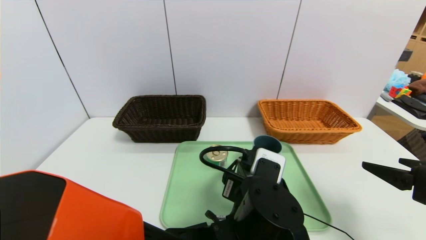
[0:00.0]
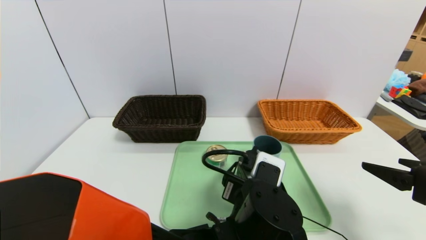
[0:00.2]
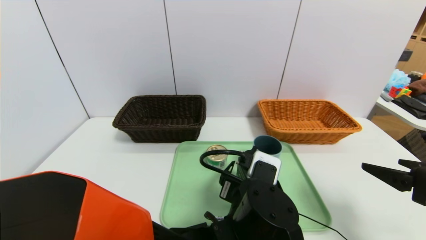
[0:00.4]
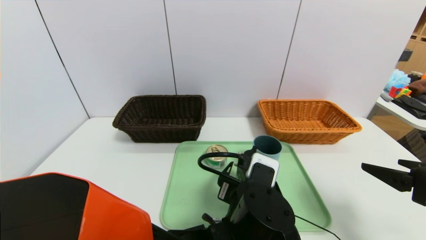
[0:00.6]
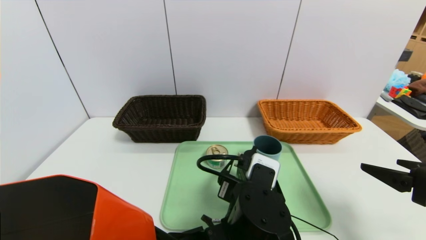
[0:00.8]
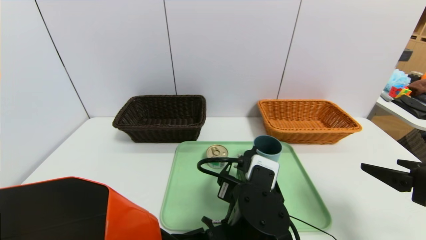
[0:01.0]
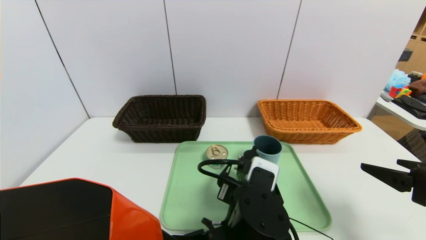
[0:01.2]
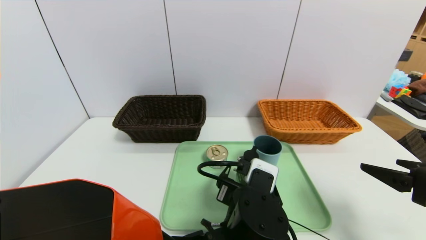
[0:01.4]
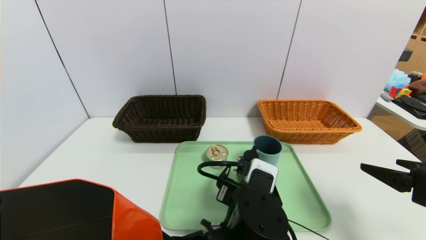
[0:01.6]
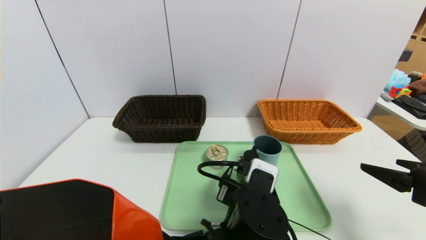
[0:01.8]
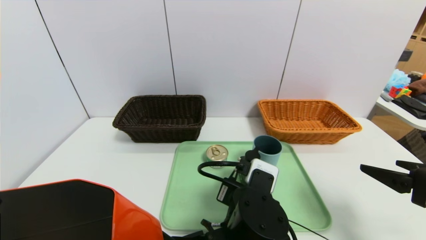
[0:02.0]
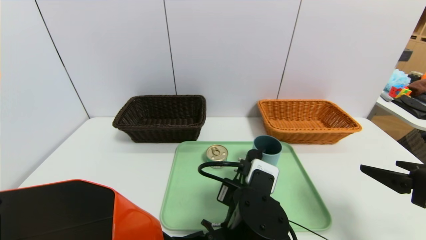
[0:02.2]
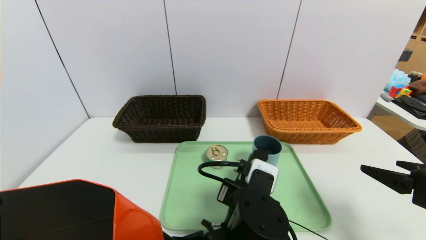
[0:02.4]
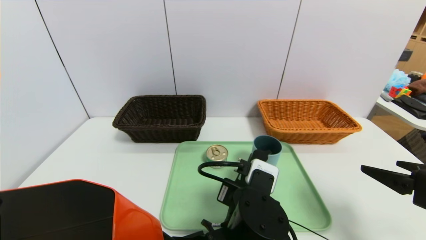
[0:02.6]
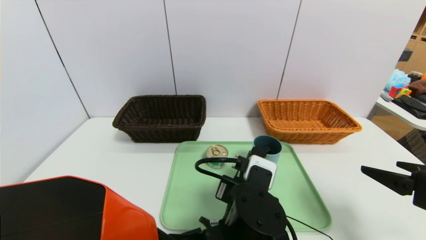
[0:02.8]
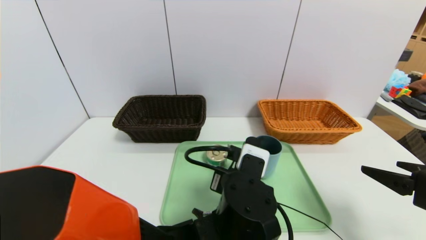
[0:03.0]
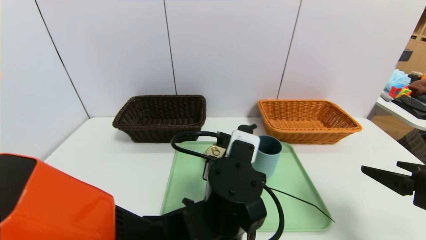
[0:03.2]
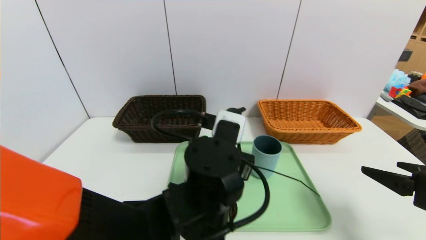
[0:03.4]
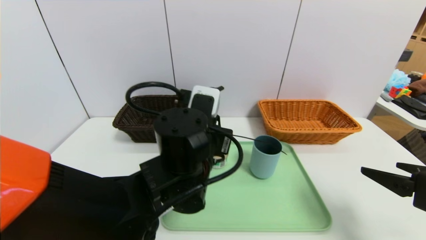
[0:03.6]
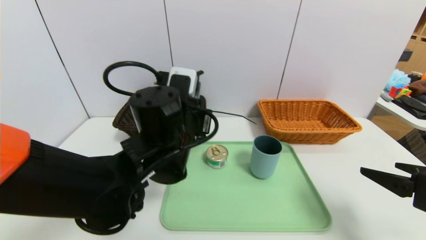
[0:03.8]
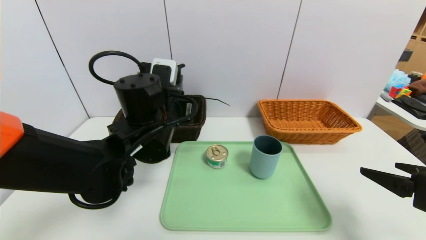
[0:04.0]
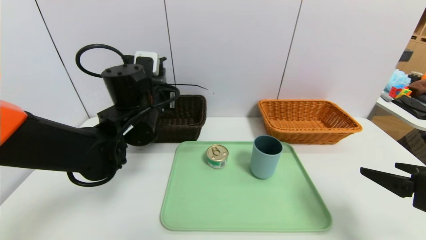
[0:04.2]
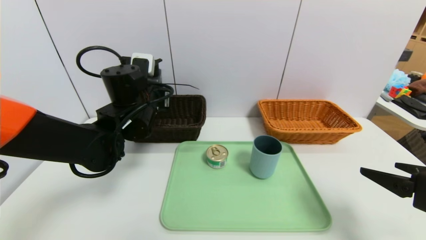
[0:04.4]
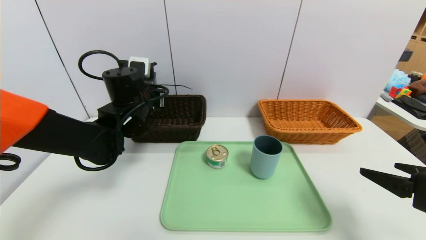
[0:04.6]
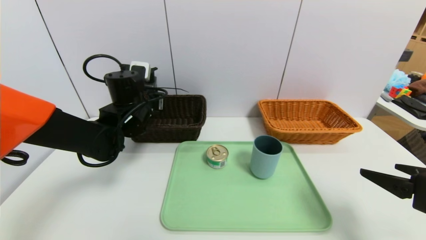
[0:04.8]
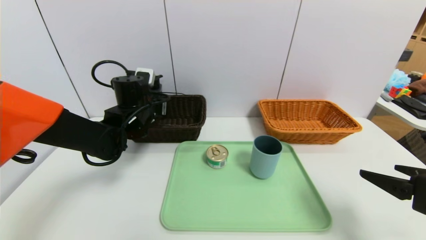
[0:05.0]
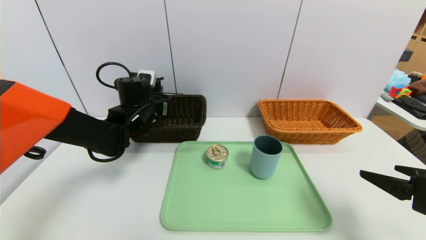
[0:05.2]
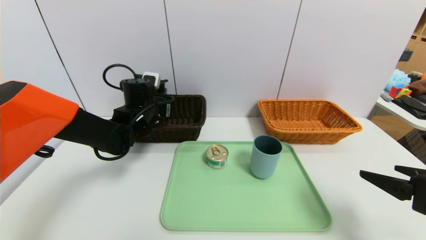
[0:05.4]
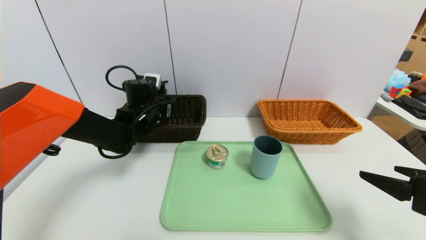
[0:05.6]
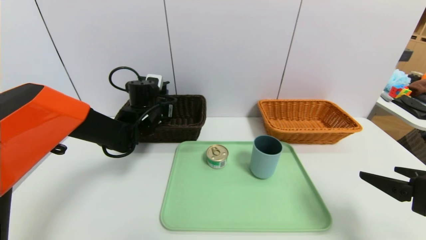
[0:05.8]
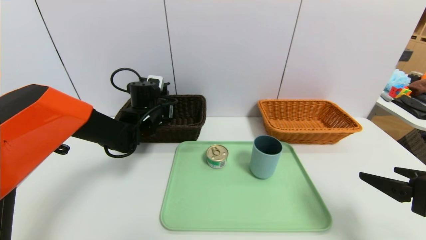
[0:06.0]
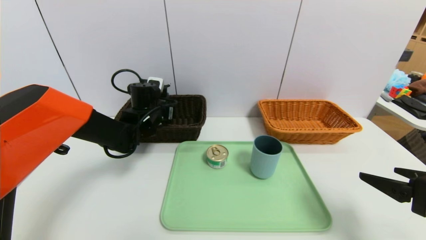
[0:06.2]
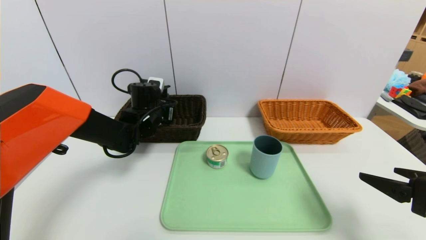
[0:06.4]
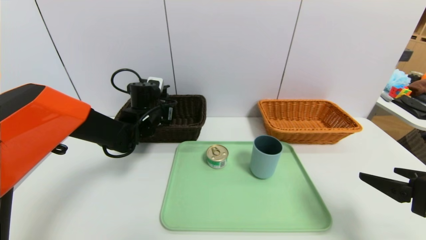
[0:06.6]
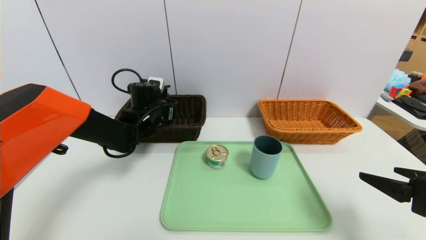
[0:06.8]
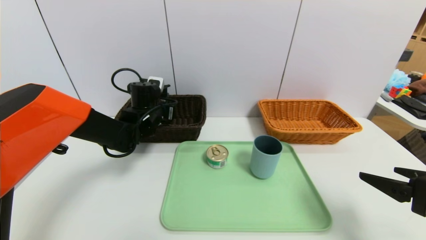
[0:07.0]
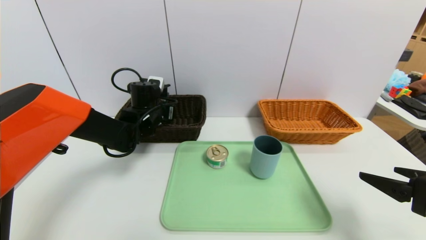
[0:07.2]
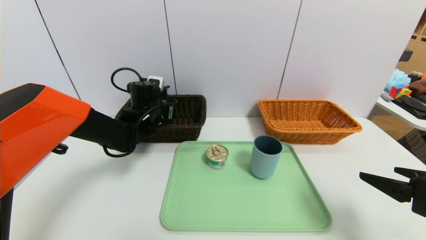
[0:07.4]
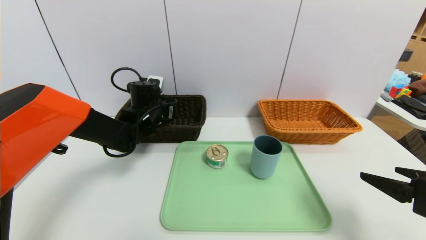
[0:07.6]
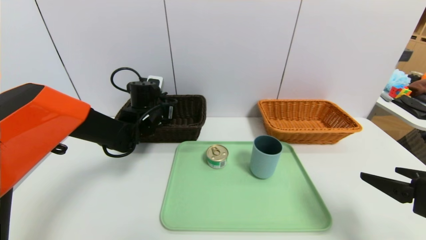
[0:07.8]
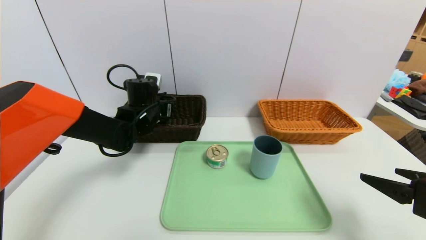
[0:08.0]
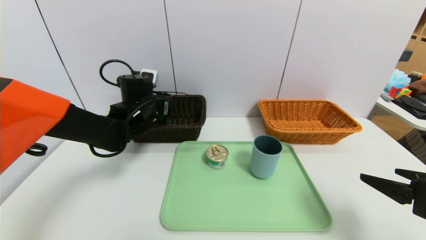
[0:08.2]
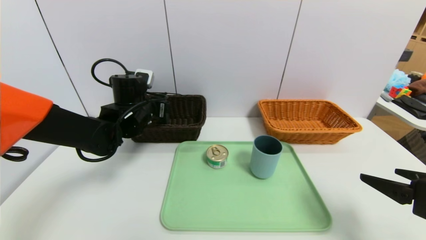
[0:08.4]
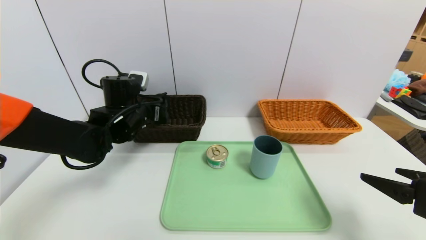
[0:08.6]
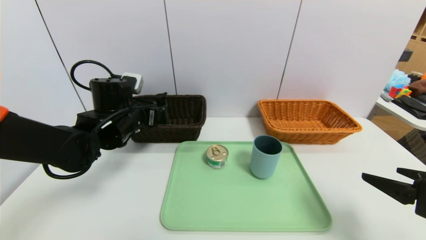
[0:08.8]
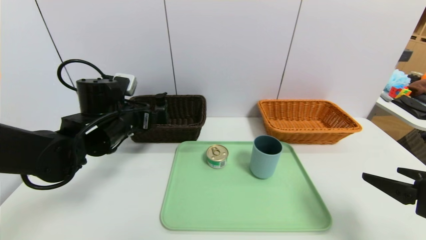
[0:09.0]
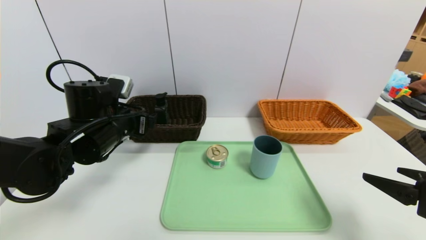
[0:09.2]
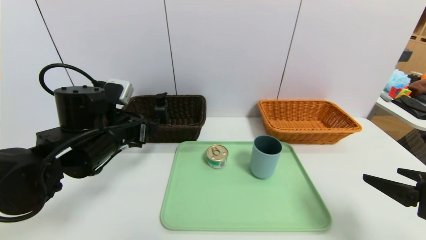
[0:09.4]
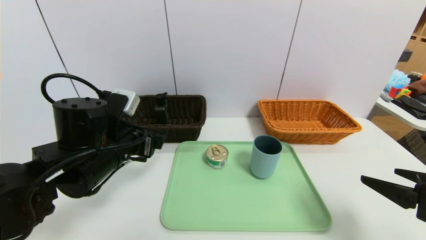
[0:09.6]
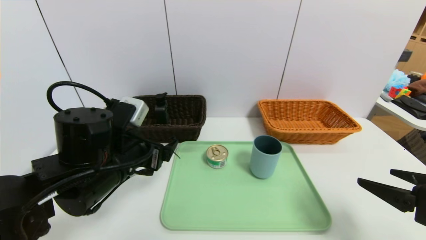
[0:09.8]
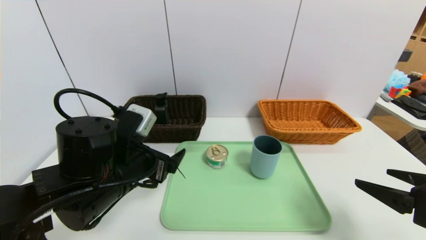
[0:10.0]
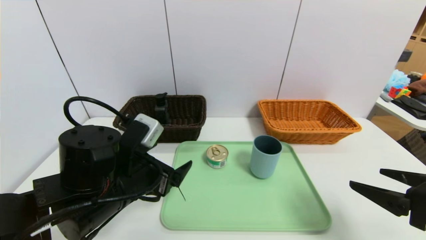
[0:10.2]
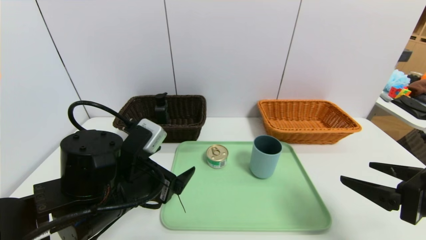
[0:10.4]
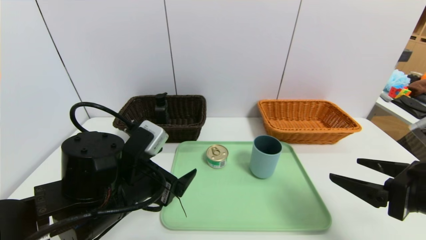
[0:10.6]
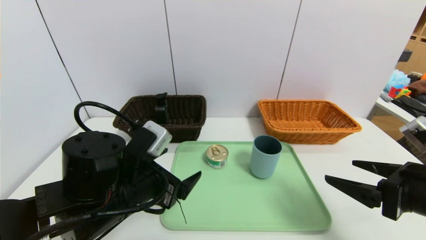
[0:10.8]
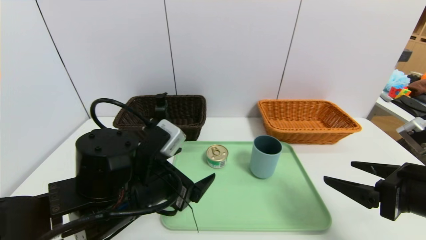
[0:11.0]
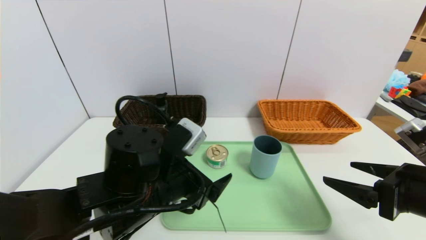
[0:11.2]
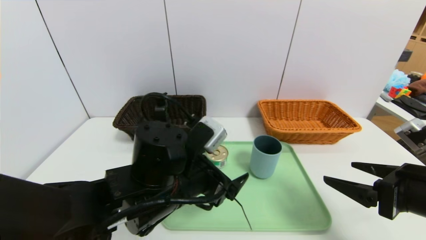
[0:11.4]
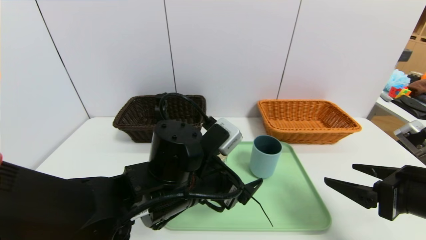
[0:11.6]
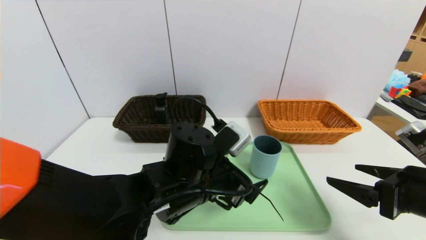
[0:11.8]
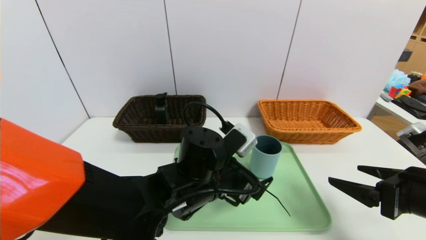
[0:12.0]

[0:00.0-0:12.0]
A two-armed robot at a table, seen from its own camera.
Task of the whole recording: place the food in the right basket with the right gripper, and place the non food items in the left basket with the left gripper.
Step, 0:00.0 to 0:07.8: Grasp the hard cleanser and put it in the left basket.
0:00.0 to 0:01.6: There are only small adjustments of the grippers.
0:01.6 to 0:03.0: The left gripper closes.
0:03.0 to 0:04.4: The left gripper heads to the left, forward and upward, covering approximately 25 cm.
0:04.4 to 0:06.0: The left gripper shifts roughly 10 cm forward and downward.
0:06.0 to 0:07.6: The left gripper opens its fingers.
0:07.6 to 0:09.0: The left gripper is displaced backward by roughly 10 cm, and opens its fingers.
0:09.0 to 0:10.4: The left gripper moves backward and to the right, approximately 15 cm.
0:10.4 to 0:12.0: The left gripper moves to the right, about 15 cm.

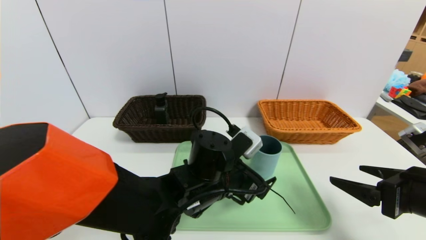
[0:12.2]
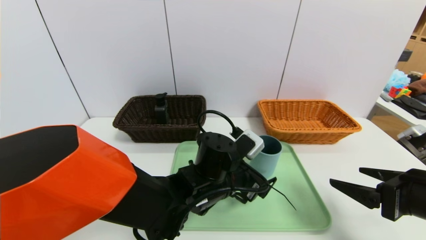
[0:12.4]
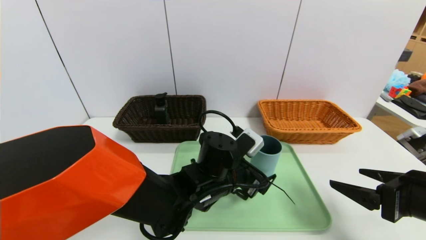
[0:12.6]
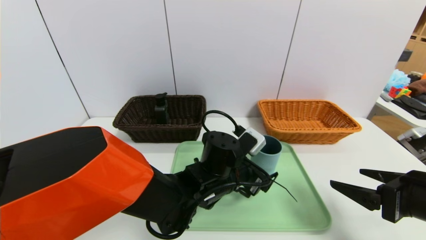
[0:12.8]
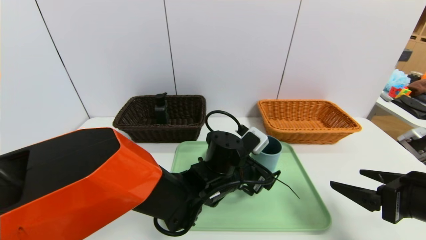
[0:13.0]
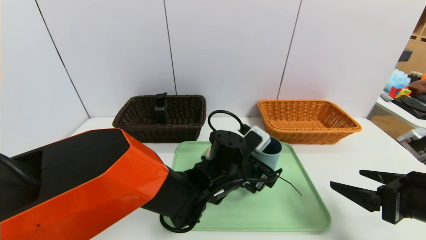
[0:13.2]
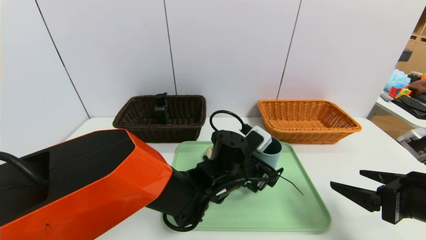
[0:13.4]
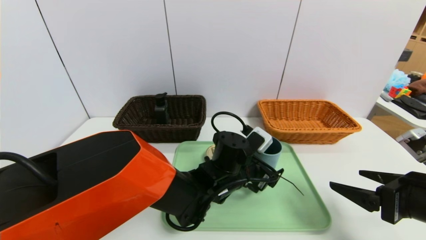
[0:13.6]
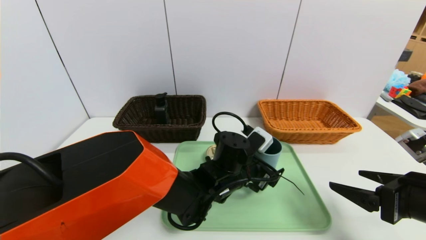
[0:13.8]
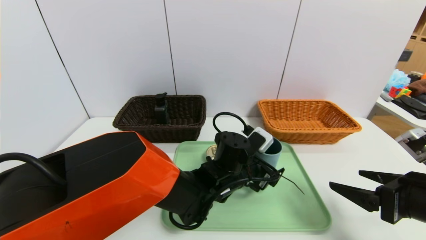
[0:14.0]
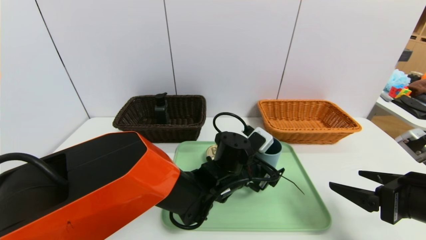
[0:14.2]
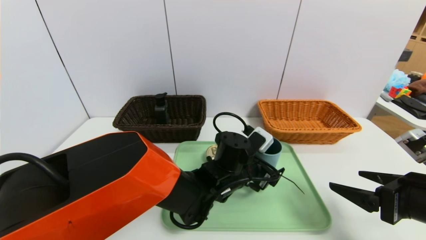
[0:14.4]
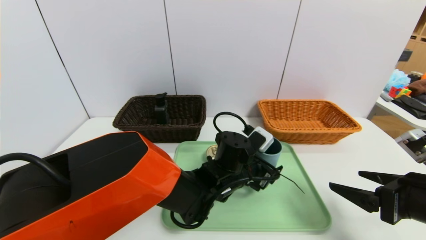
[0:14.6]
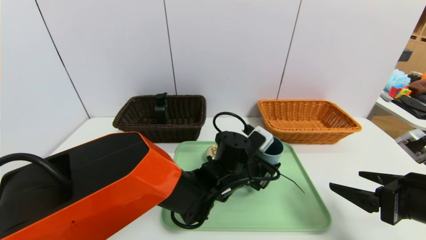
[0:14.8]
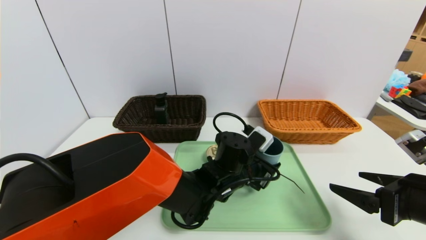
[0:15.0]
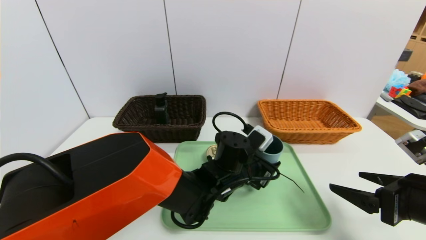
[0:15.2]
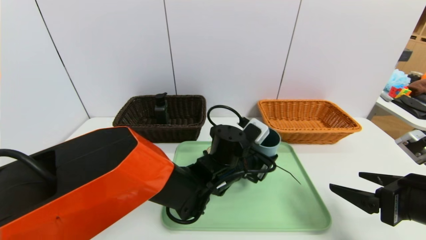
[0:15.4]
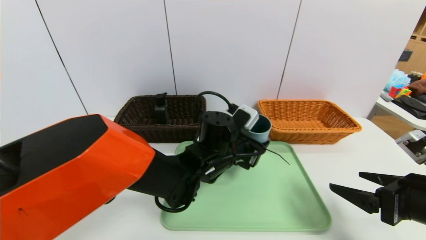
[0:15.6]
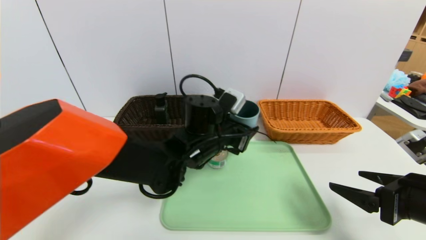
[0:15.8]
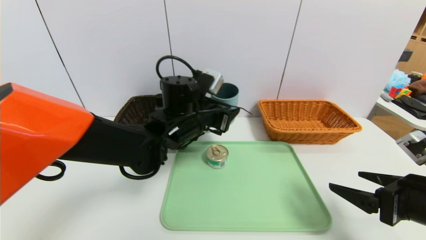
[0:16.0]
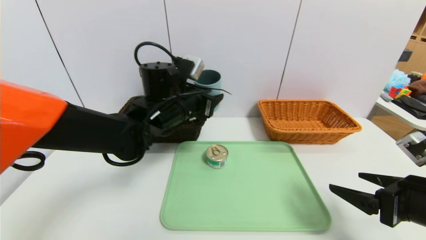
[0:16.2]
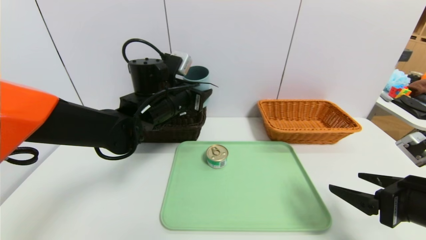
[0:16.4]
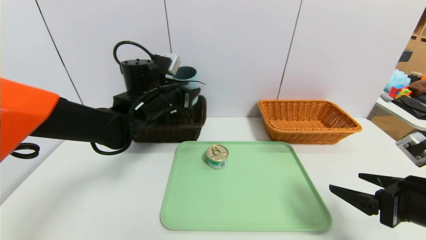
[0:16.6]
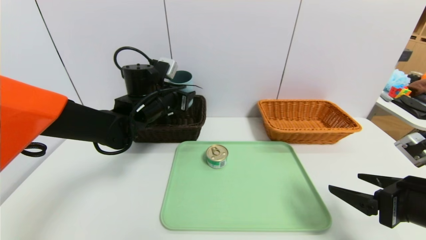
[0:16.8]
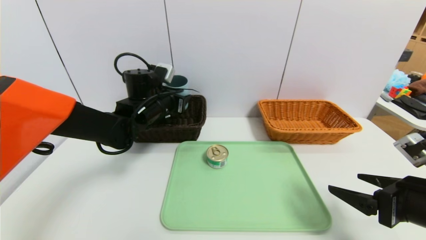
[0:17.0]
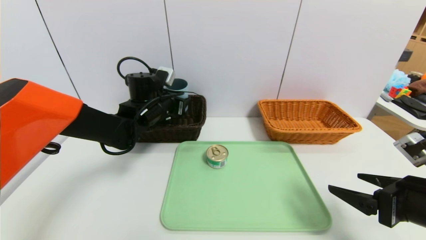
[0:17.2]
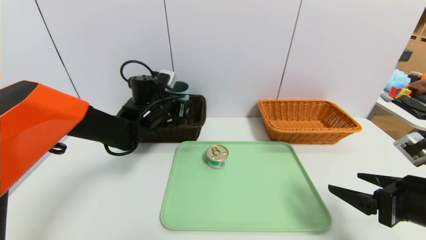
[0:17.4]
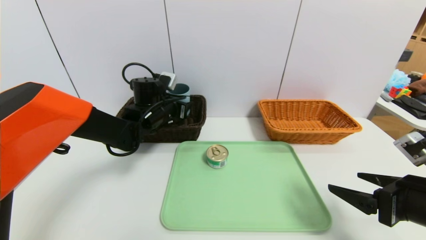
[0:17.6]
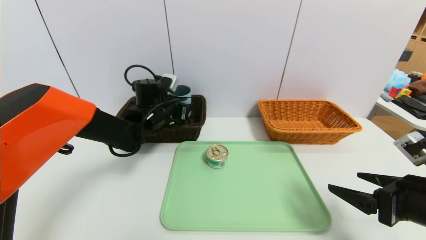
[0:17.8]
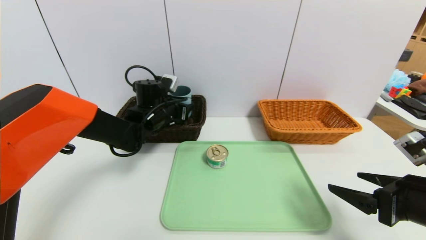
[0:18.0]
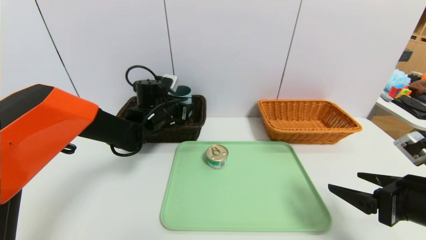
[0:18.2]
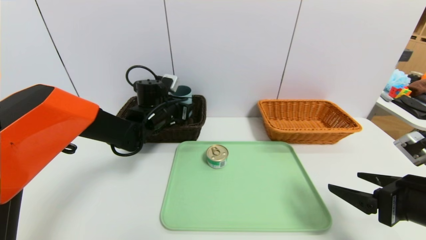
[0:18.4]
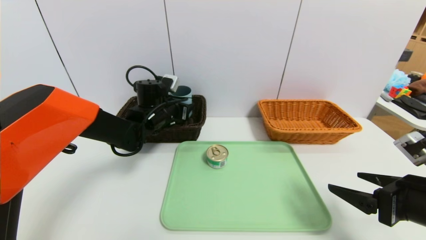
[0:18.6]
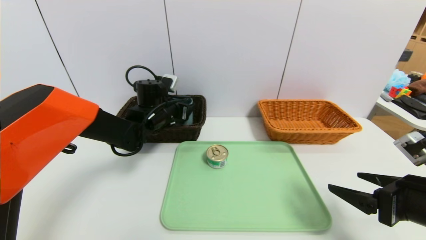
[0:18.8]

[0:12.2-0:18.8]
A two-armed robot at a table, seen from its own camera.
Task of the whole recording: place the food in the right basket with the right gripper, and place the non food items in the left basket with the left gripper.
0:12.2 to 0:13.8: The left gripper changes place by about 5 cm.
0:13.8 to 0:15.4: The left gripper closes up.
0:15.4 to 0:17.2: The left gripper heads to the left and forward, covering approximately 20 cm.
0:17.2 to 0:18.8: The grippers move only a little.
